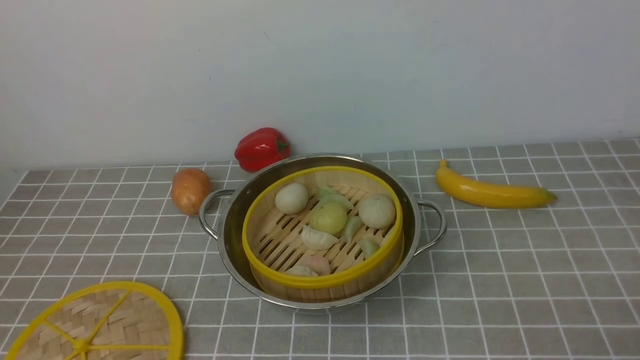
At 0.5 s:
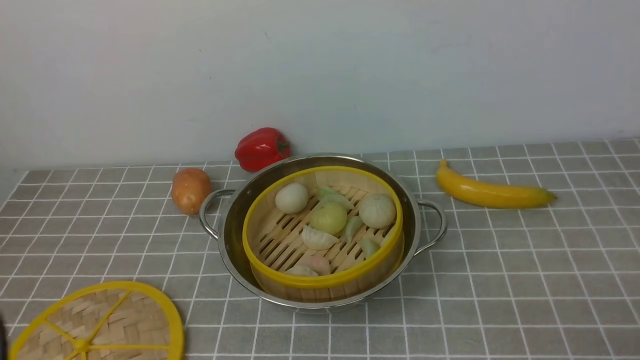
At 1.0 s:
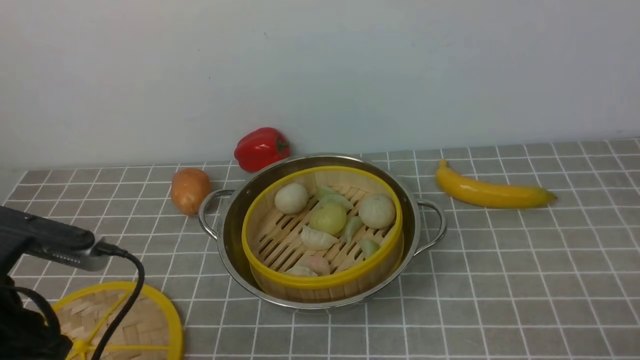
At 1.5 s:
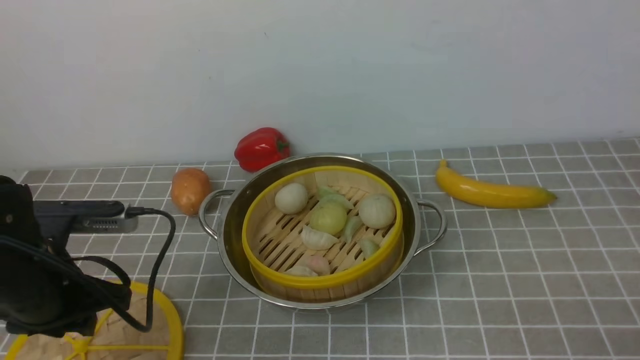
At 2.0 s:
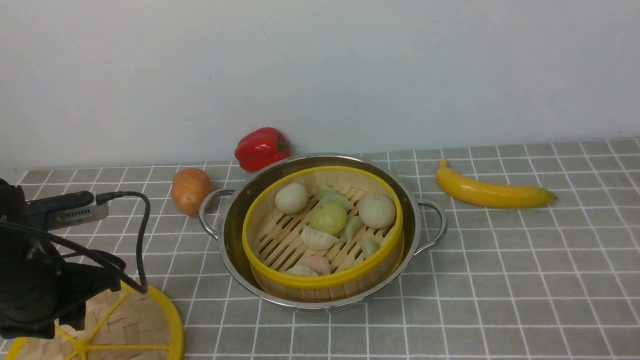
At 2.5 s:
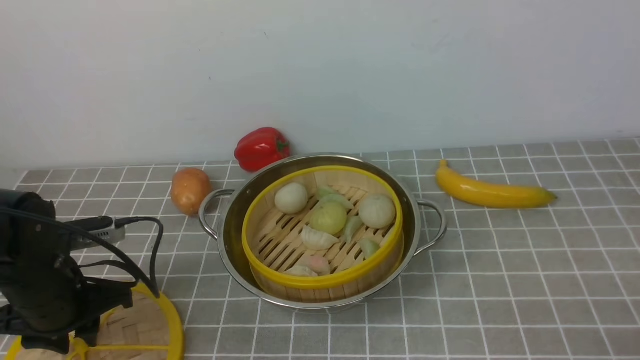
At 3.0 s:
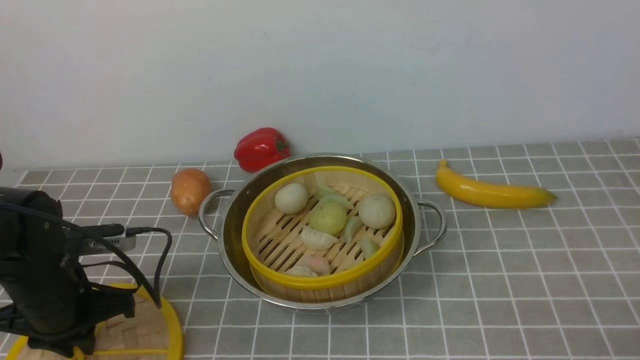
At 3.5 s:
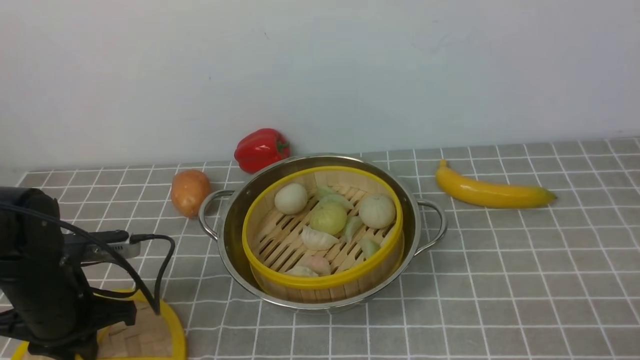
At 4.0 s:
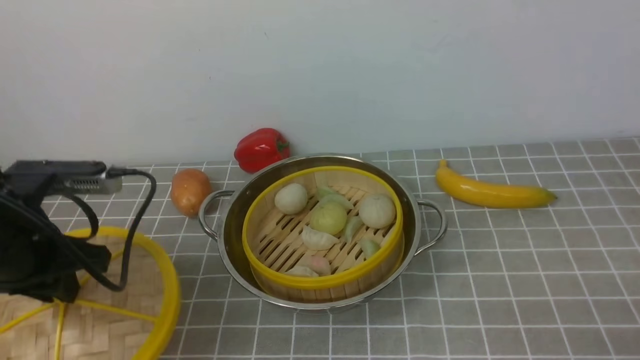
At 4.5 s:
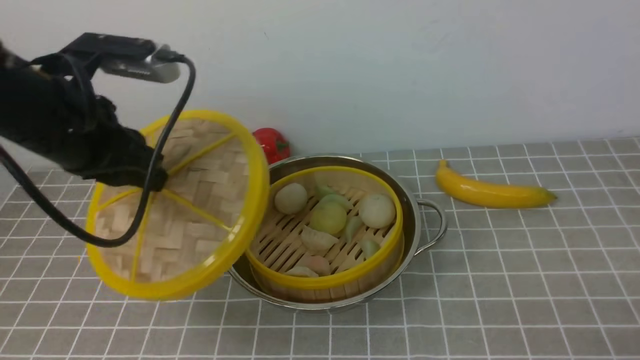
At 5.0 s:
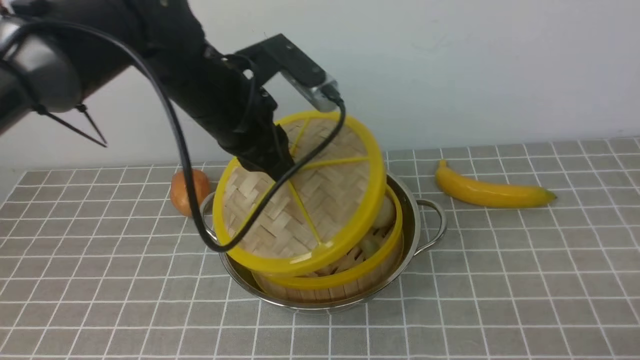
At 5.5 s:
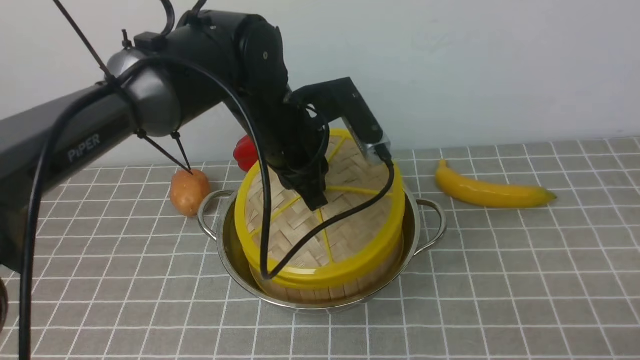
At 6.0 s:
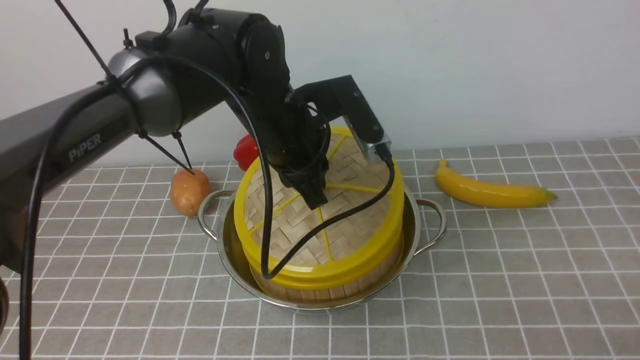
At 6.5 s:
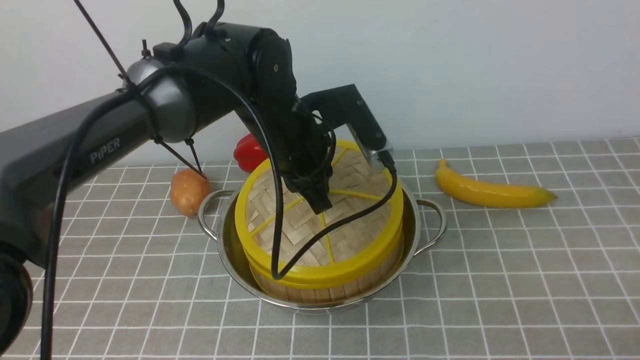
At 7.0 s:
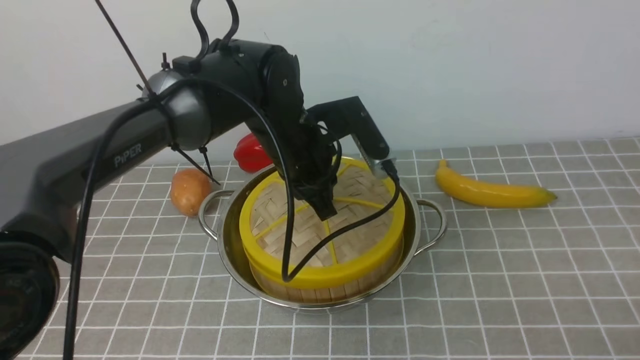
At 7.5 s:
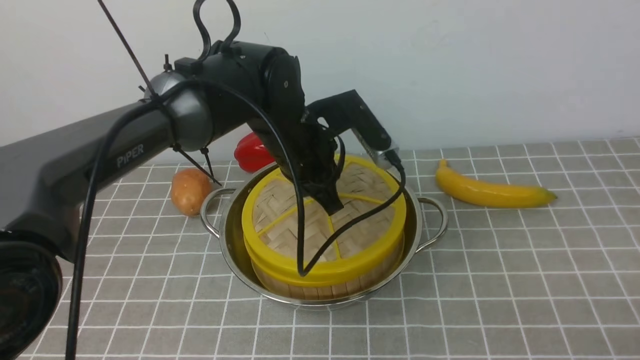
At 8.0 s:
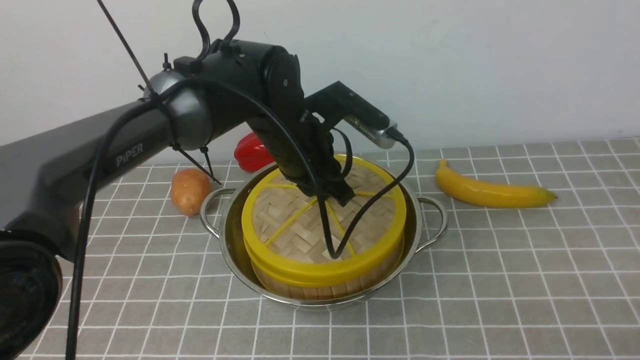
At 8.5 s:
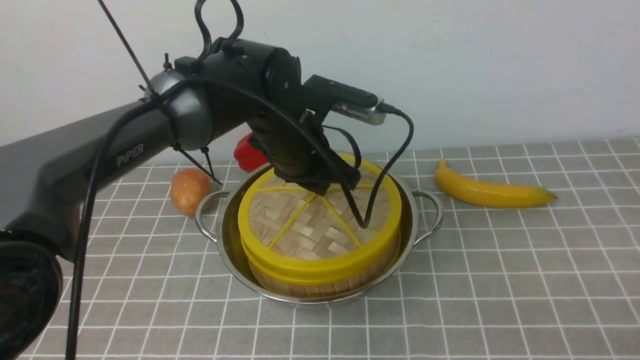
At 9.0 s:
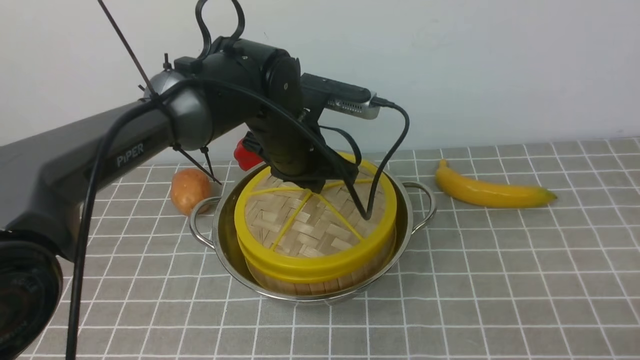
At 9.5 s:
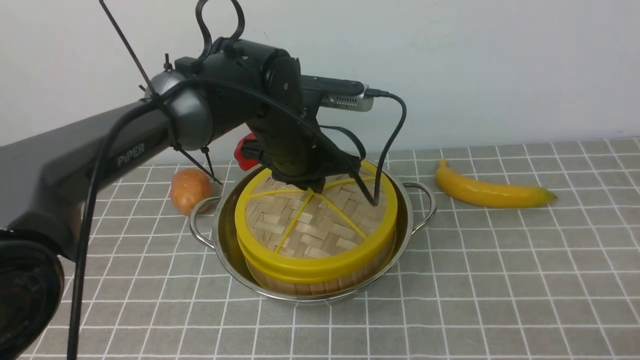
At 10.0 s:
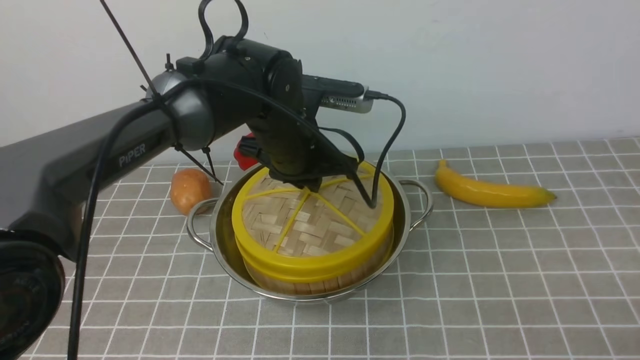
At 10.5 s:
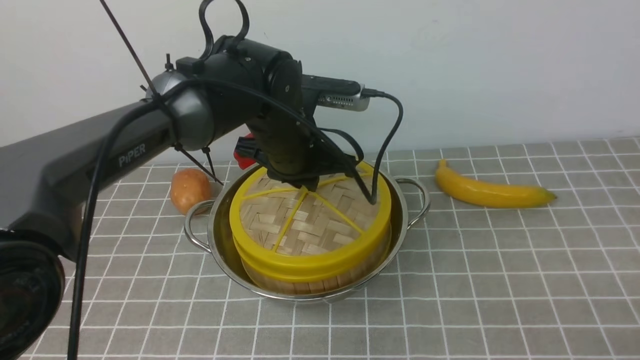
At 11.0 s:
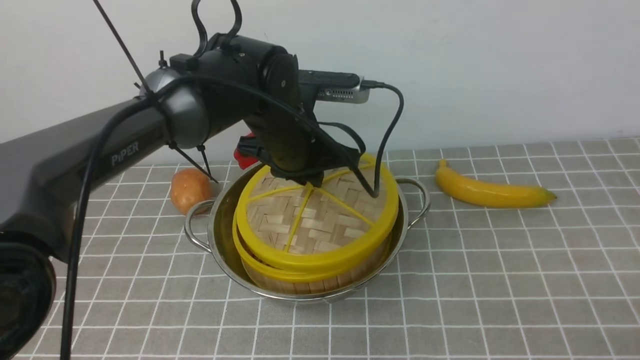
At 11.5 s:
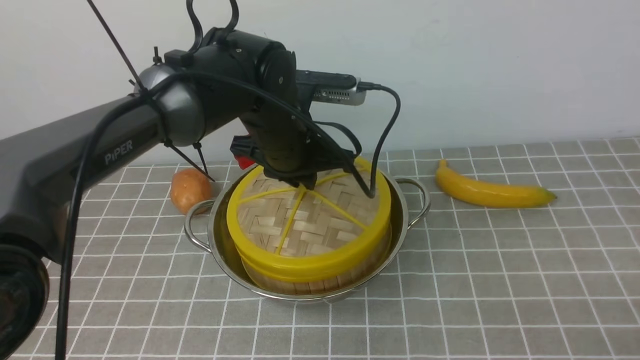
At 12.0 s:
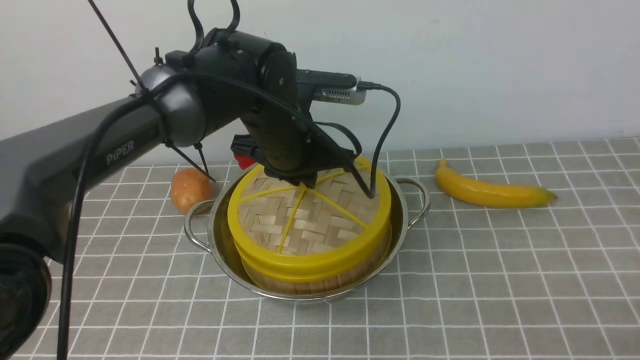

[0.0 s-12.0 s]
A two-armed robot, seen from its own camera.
Task of the whole recording: place the steamer in the pot on the grey tablecloth, and put the lid on the steamer.
Step, 0.0 to 3.5 s: use the left arm to lift the lid of the steamer.
0.0 to 2.0 s: The left gripper travels forward by roughly 25 cm.
2.0 to 4.0 s: The left gripper shifts about 5 cm upward, and closes its fingers.
4.0 to 6.0 s: The left gripper is displaced to the right and forward by roughly 25 cm.
10.0 to 12.0 s: The two grippers keep their place.

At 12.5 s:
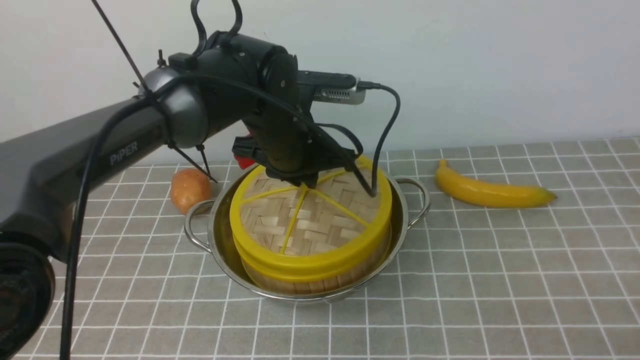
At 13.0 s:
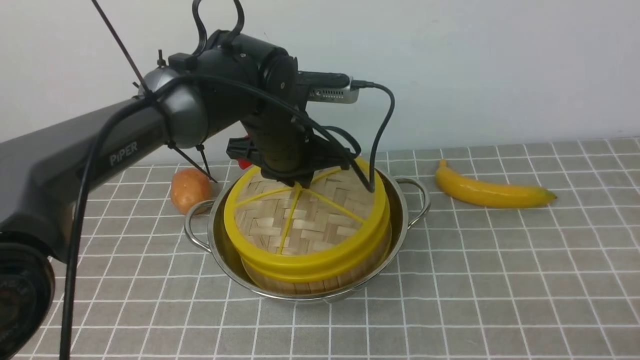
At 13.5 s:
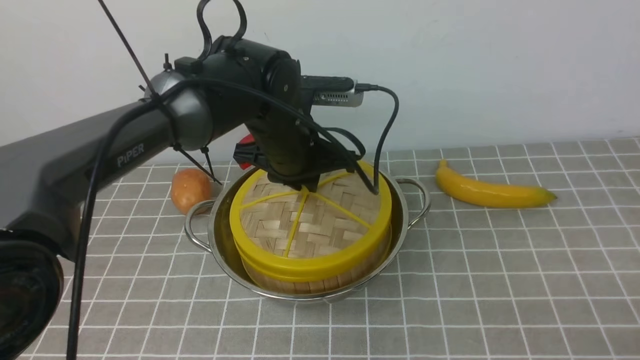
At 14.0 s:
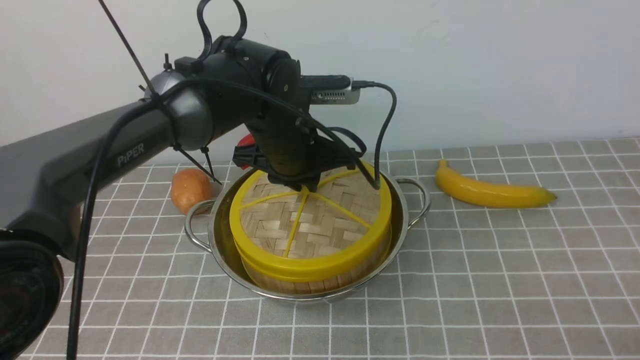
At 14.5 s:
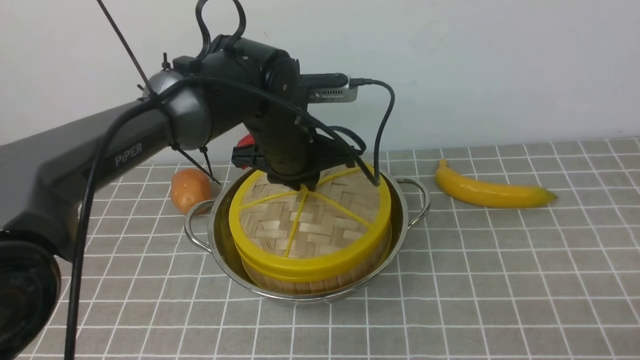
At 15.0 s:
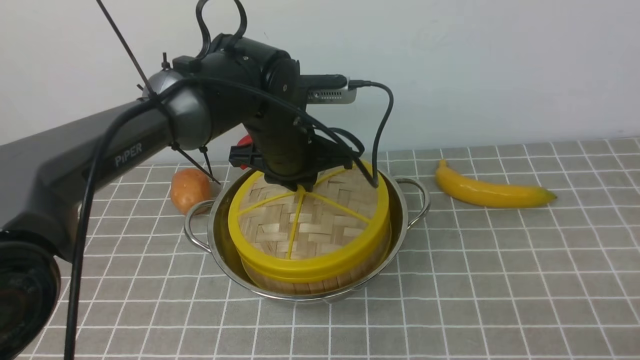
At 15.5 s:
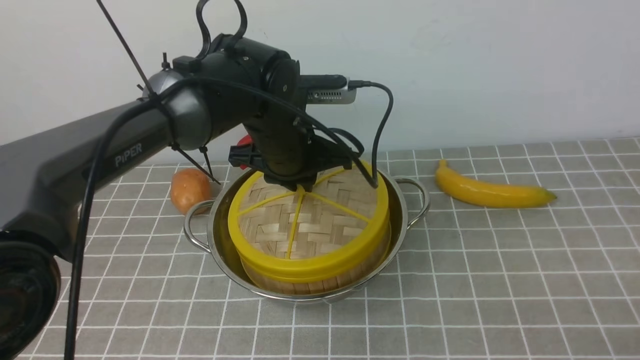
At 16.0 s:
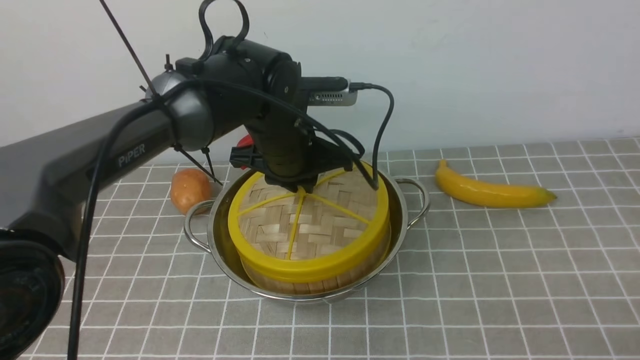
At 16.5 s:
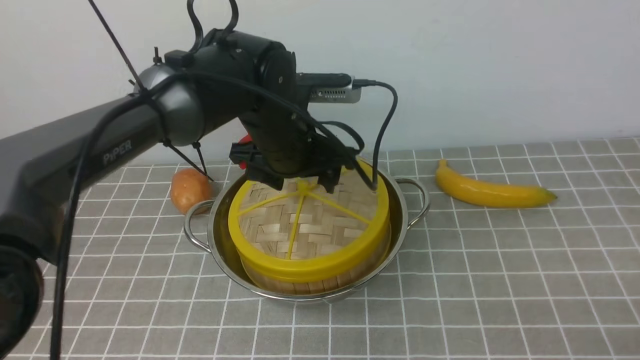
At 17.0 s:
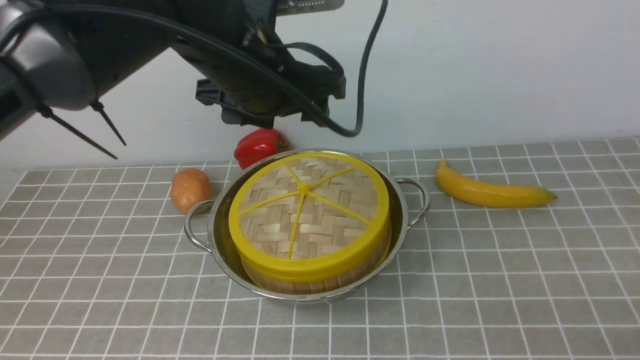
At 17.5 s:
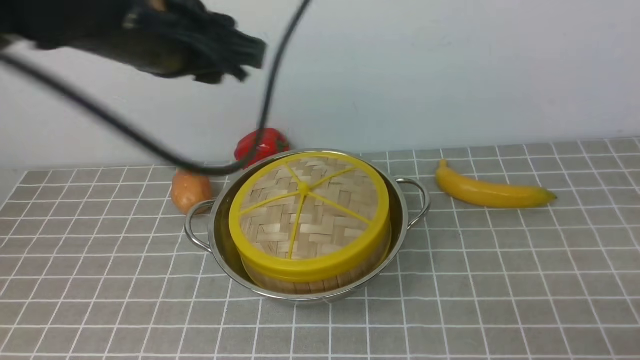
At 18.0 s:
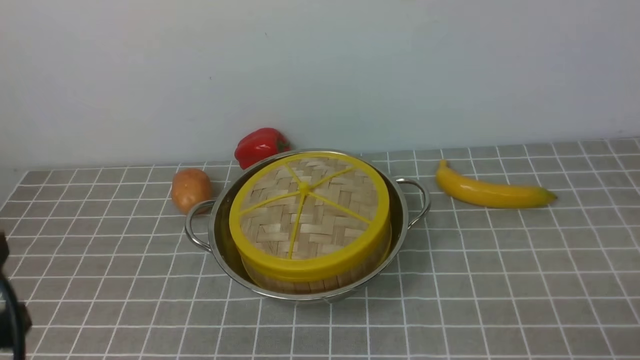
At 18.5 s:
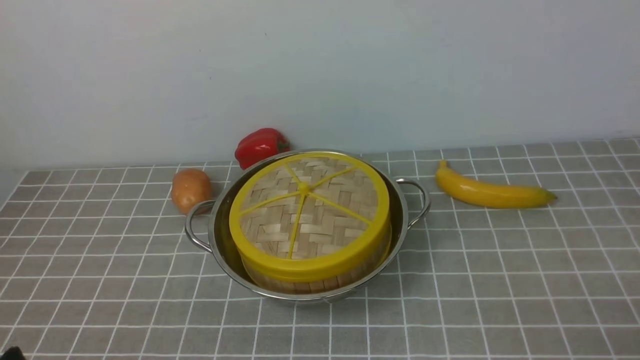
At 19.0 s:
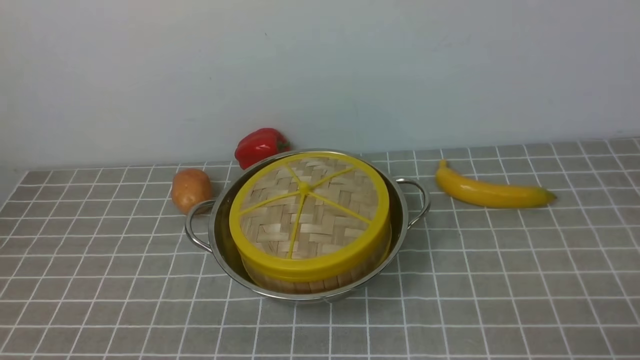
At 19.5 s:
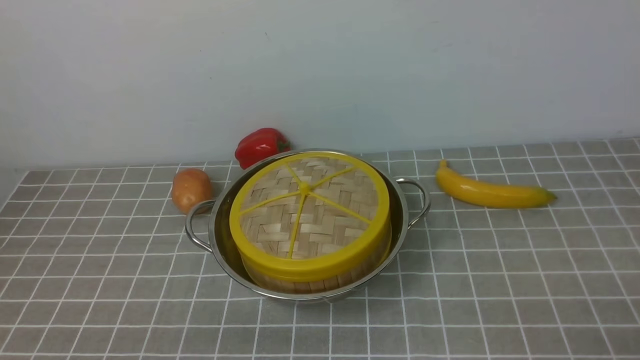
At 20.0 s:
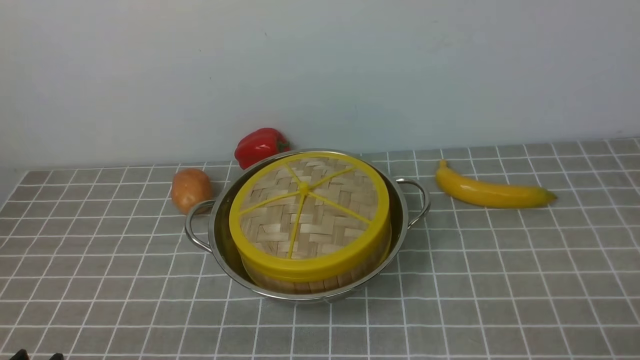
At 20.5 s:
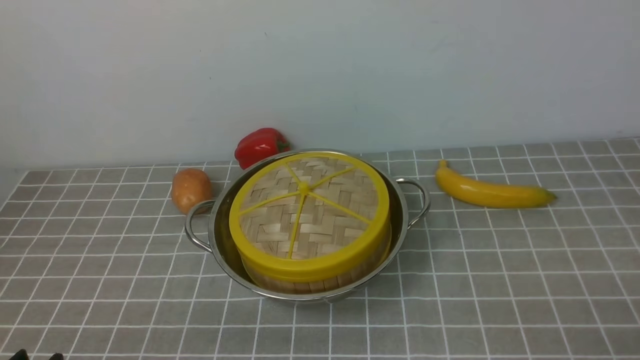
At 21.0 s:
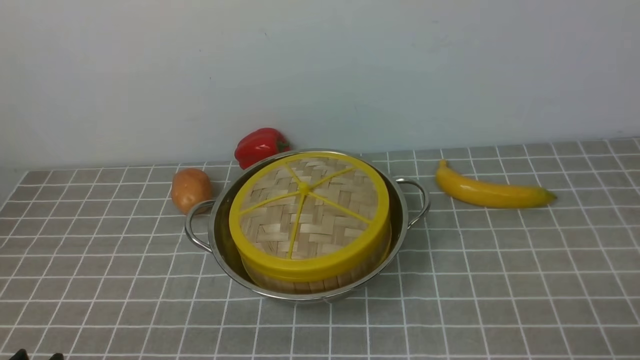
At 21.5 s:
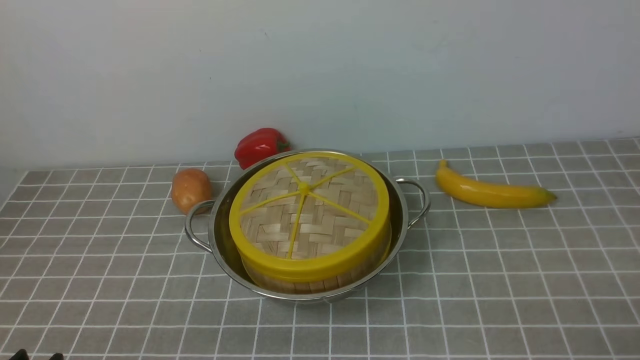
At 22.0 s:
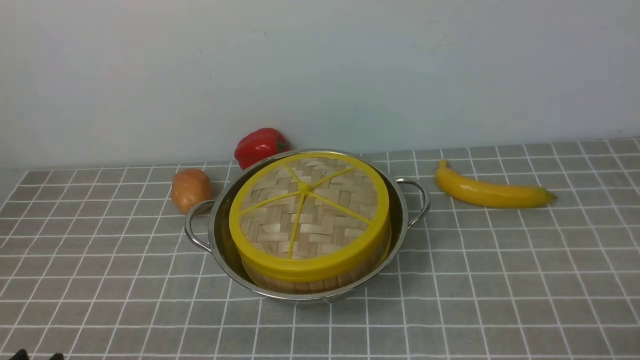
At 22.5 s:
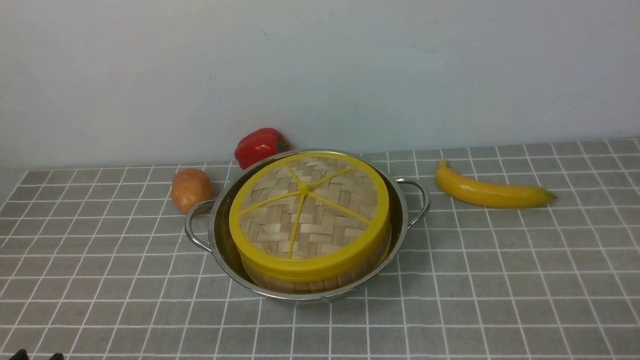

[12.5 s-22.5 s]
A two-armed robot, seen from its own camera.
Task of the whole recording: place the steamer in the pot on the grey tablecloth, and put the lid on the steamer.
Step, 12.5 to 16.5 s: use the left arm to place the steamer lid on the steamer.
12.5 to 14.5 s: There are only small adjustments of the grippers.
14.5 to 16.5 s: The left gripper opens its fingers.
16.5 to 18.5 s: The left gripper shifts approximately 40 cm backward and to the left, and closes its fingers.
20.5 to 22.5 s: Both grippers stay about where they are.
